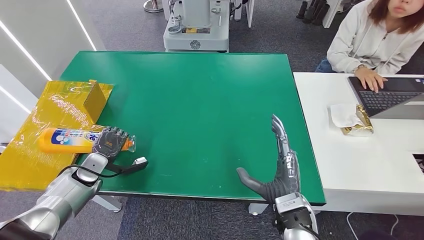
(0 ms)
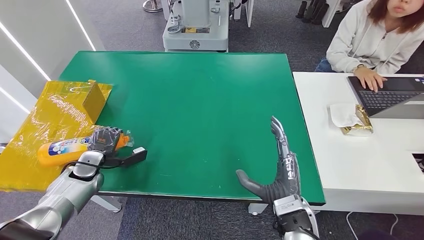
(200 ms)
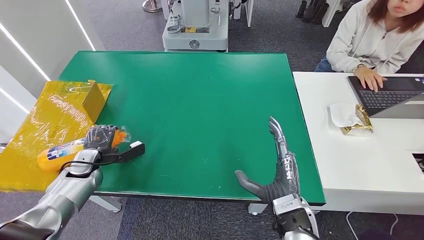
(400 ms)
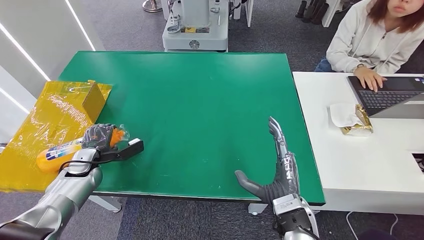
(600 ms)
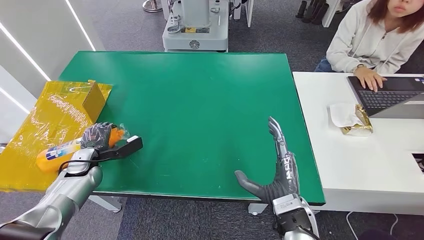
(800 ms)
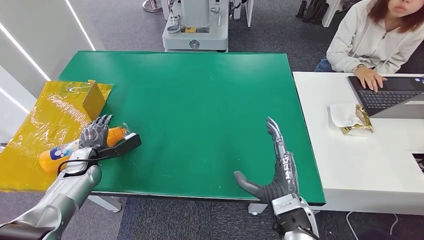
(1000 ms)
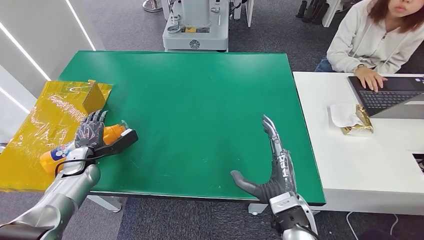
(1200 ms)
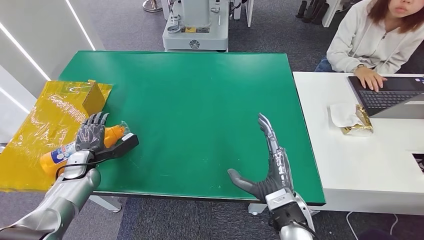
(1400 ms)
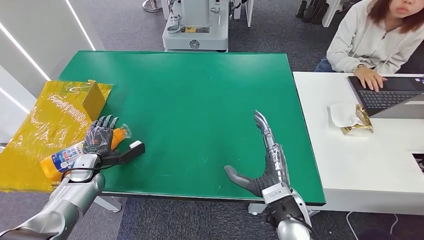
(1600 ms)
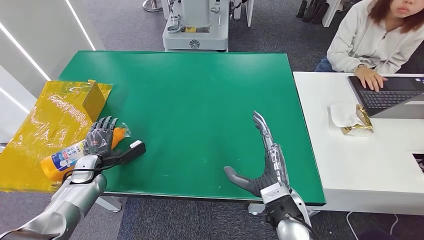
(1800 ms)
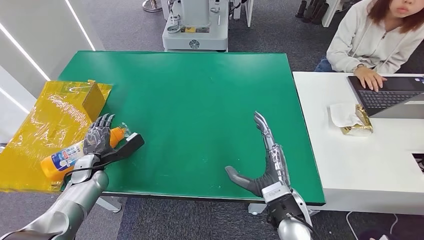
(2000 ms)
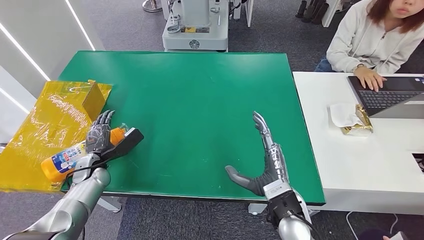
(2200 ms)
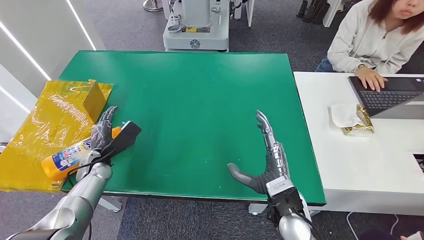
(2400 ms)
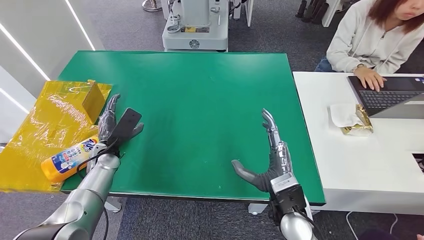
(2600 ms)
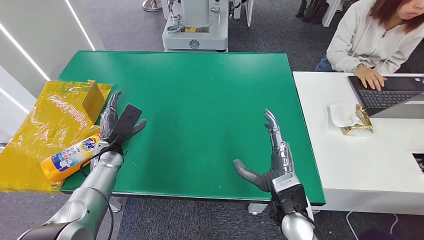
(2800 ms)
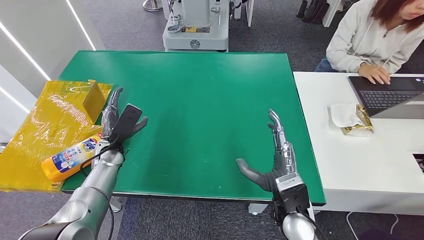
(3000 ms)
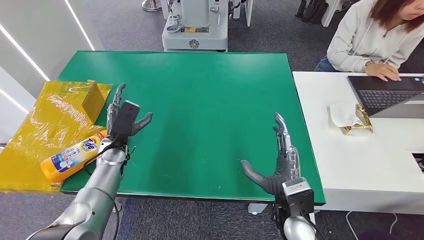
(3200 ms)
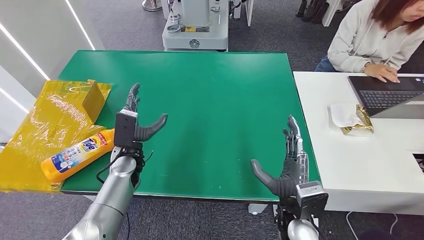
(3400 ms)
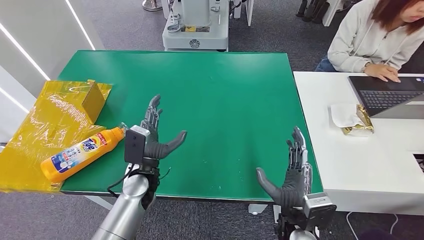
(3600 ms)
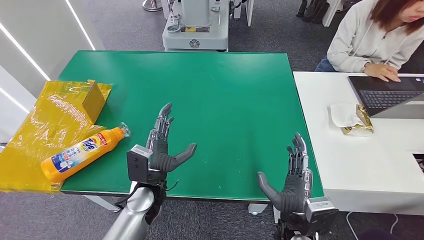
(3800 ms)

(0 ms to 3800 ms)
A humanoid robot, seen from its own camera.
Step, 0 ms - 3800 ms: Turn the bottle to the front side.
1200 ms - 2600 ms: The left hand travels to the right by roughly 10 cm.
2600 ms - 3800 ms: The left hand shifts some 20 cm to the right and backward. Meanwhile the right hand ends up about 5 cm from where it was.
